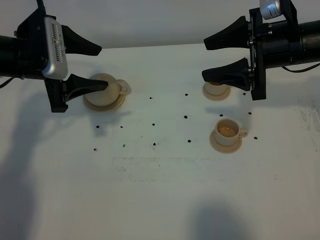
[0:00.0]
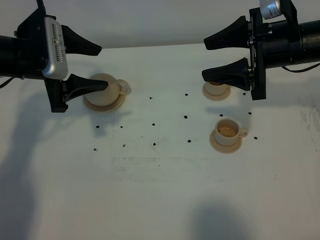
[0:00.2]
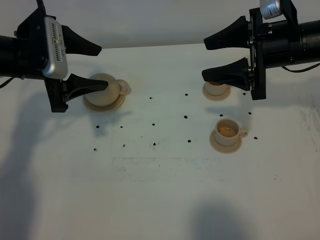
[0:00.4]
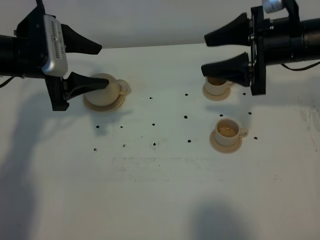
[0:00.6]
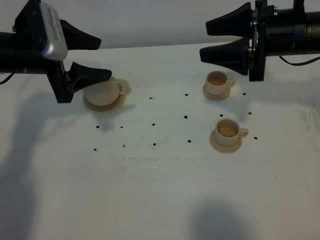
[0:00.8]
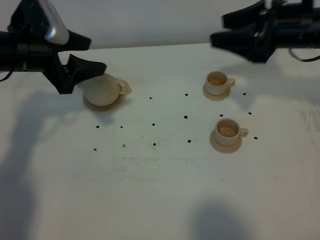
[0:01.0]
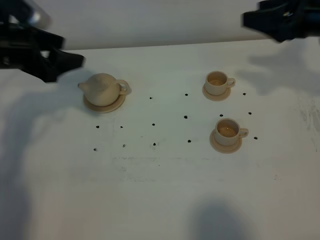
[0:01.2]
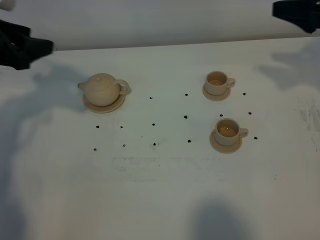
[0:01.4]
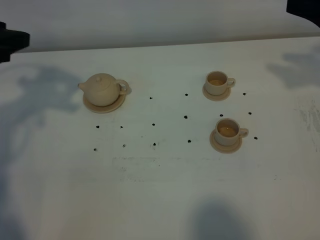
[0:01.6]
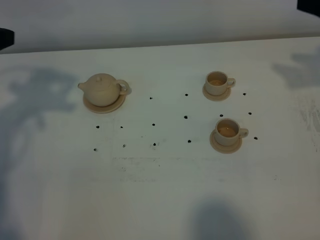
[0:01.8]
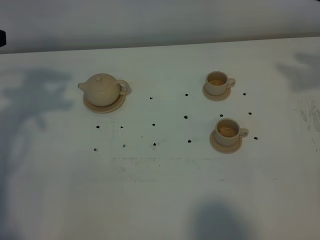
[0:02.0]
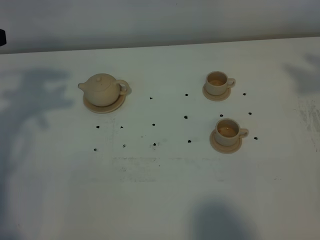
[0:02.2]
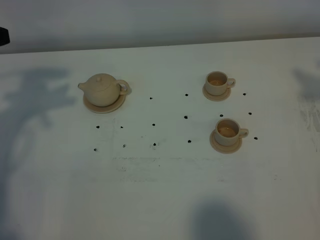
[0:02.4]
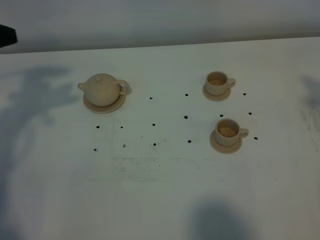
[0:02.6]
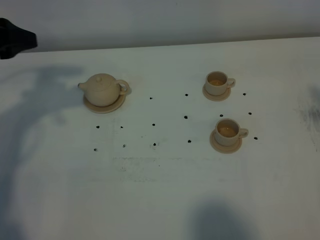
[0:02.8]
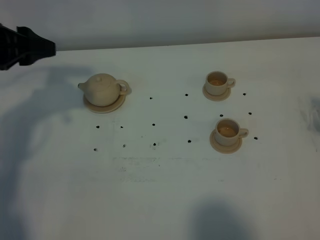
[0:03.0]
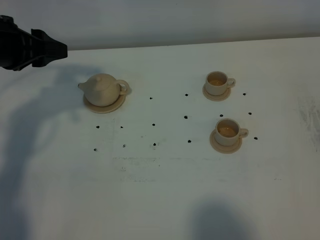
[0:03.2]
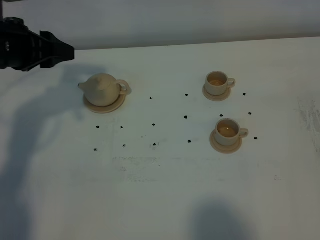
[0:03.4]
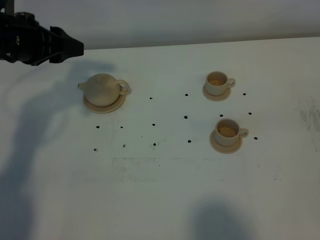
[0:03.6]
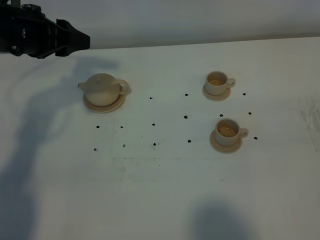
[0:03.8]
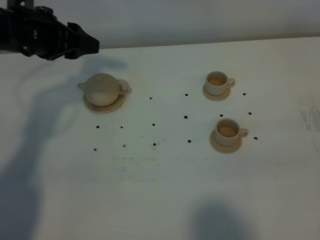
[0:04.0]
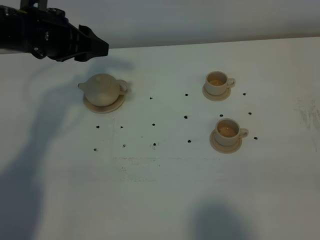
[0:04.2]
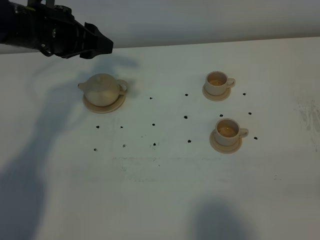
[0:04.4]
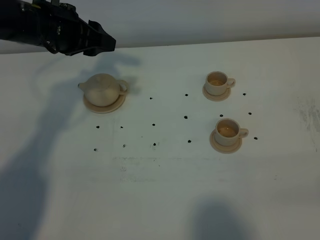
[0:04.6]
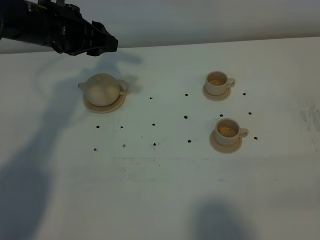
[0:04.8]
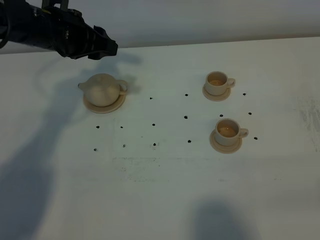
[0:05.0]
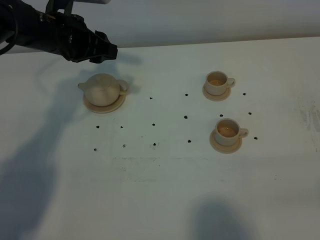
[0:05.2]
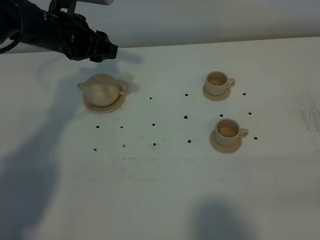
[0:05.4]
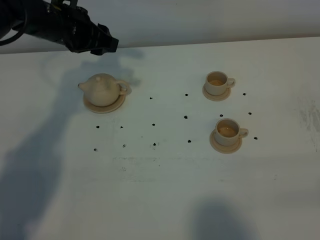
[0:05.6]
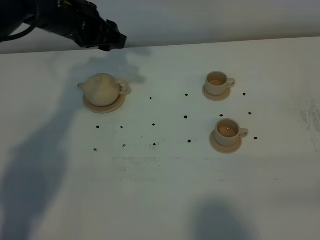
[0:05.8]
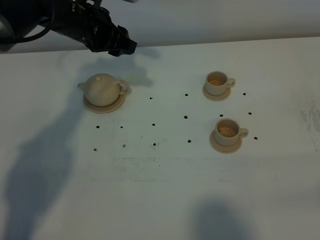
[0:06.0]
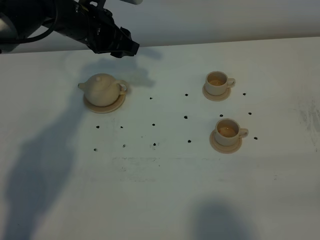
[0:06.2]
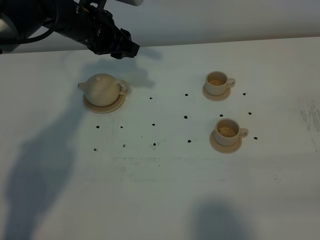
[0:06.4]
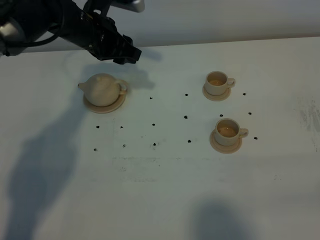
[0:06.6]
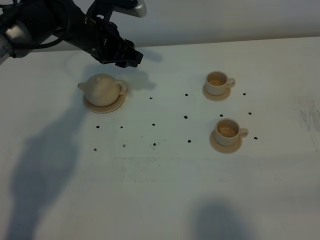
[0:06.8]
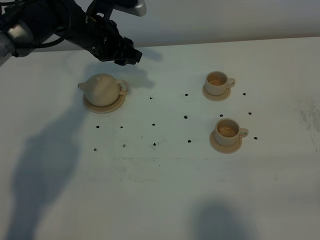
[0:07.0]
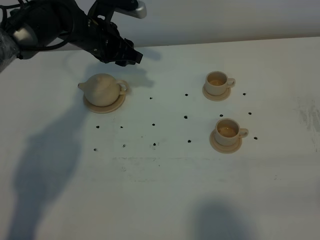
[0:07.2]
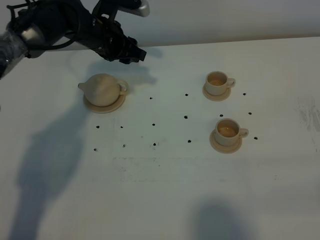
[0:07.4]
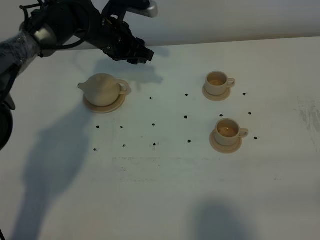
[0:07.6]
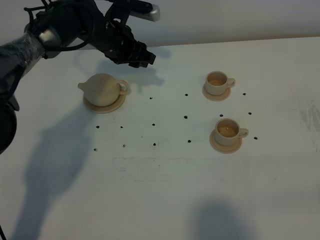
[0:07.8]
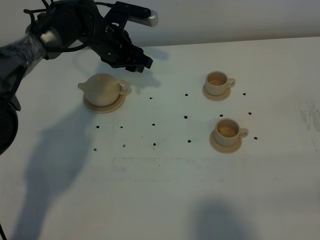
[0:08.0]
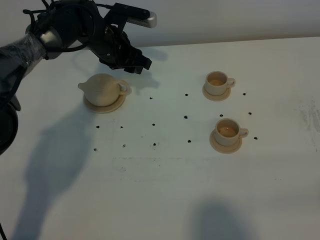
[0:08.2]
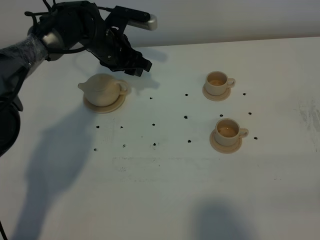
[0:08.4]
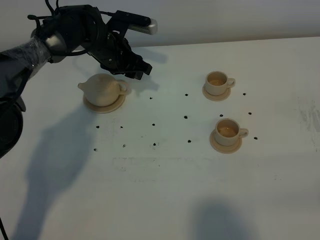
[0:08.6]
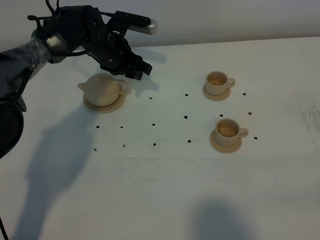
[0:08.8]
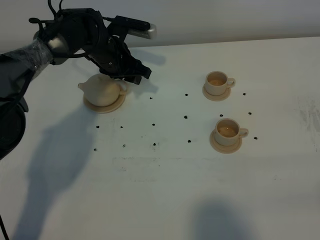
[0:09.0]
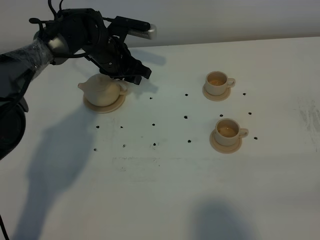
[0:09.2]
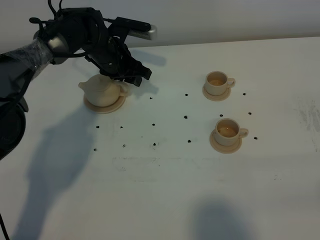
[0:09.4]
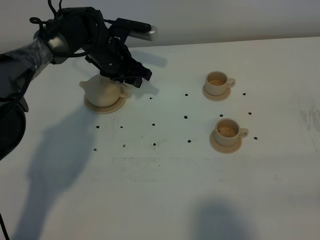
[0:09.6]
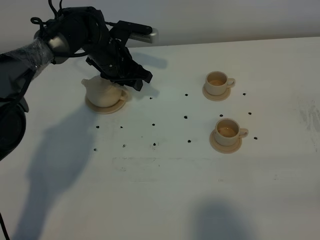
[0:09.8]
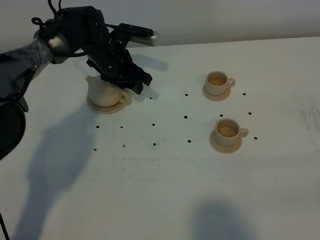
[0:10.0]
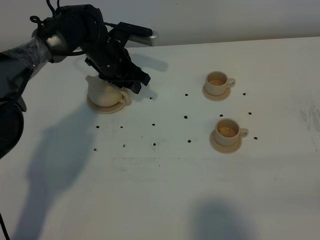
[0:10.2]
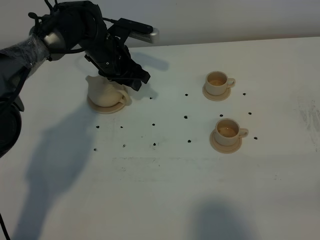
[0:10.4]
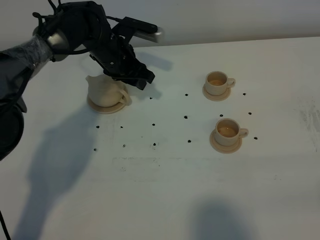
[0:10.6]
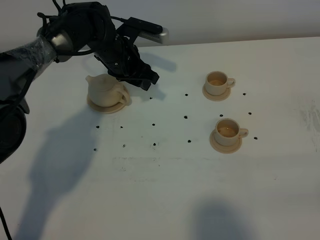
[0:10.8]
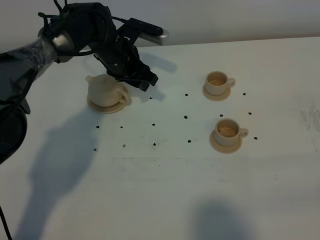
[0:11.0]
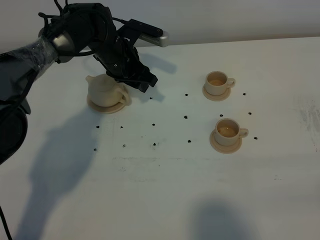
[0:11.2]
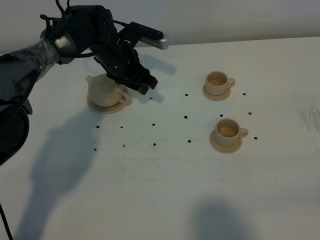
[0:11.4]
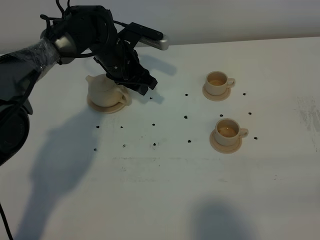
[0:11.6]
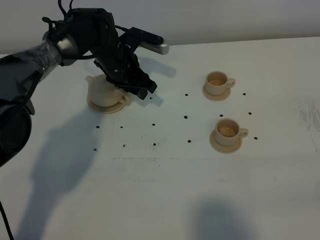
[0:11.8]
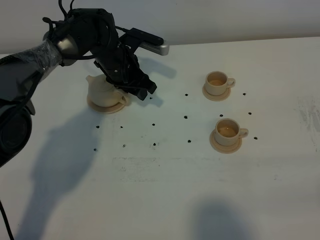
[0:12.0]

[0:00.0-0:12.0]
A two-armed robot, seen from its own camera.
Task of the whole recording: grasp the brown teapot and pour the tea into the two brown teacups one by one, put the brown teapot back in its original place.
0:00.0 to 0:01.6: The left gripper goes some 10 cm to the left and upward, while the right gripper goes roughly 15 cm to the right and upward.
0:01.6 to 0:03.0: The right gripper shifts some 25 cm backward and upward.
0:03.0 to 0:04.4: The left gripper heads to the right and forward, covering some 10 cm. The right gripper travels backward and downward by about 20 cm.
0:04.4 to 0:06.0: The right gripper closes. Meanwhile the left gripper heads forward, covering some 5 cm.
0:06.0 to 0:07.6: The left gripper shifts some 5 cm downward.
0:07.6 to 0:10.4: The grippers stay close to where they were, moving slightly.
0:10.4 to 0:12.0: The grippers stay close to where they were, moving slightly.

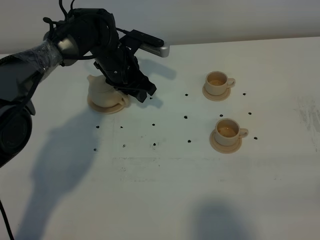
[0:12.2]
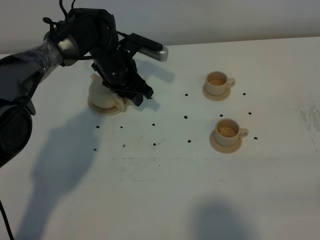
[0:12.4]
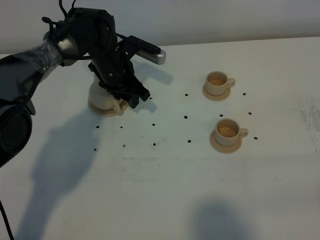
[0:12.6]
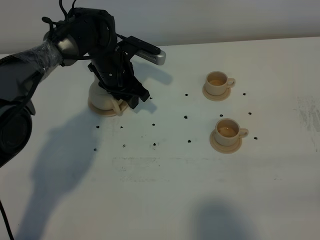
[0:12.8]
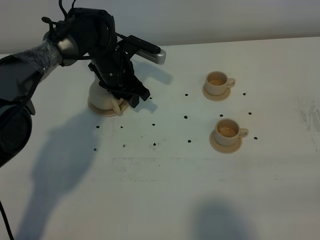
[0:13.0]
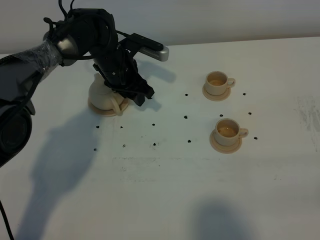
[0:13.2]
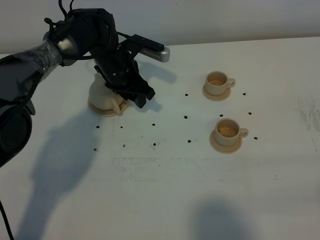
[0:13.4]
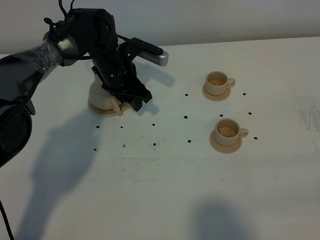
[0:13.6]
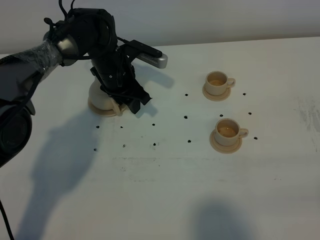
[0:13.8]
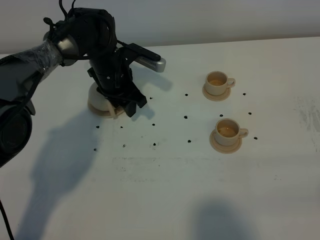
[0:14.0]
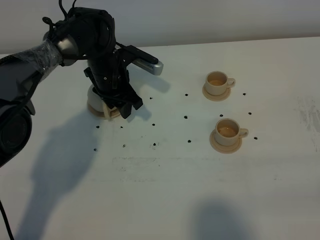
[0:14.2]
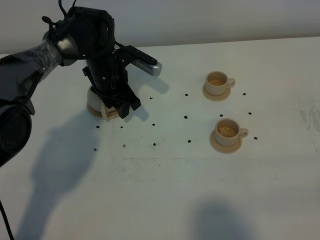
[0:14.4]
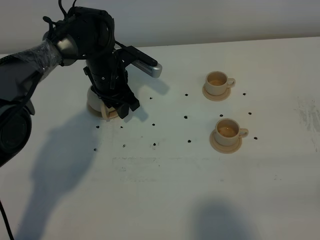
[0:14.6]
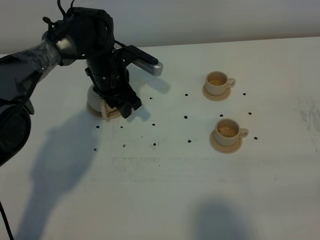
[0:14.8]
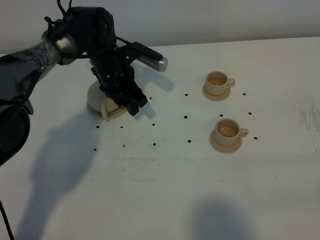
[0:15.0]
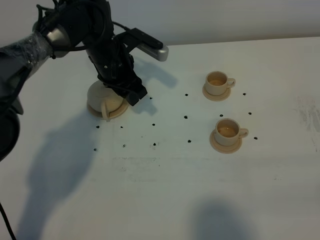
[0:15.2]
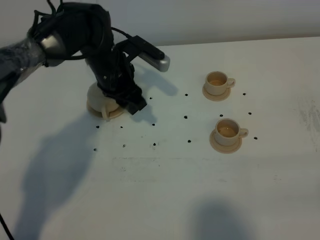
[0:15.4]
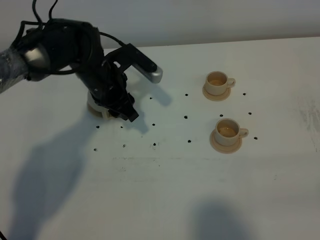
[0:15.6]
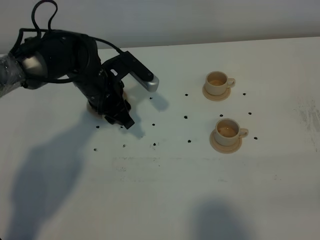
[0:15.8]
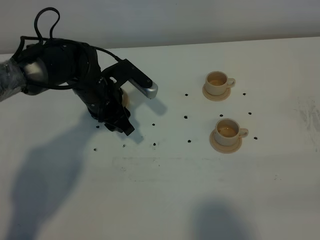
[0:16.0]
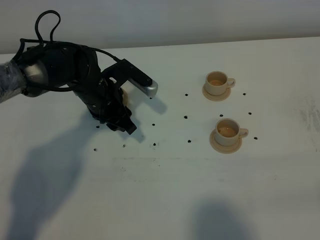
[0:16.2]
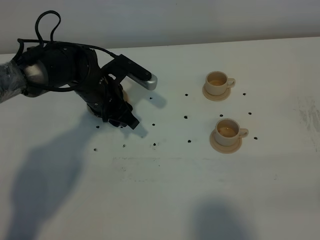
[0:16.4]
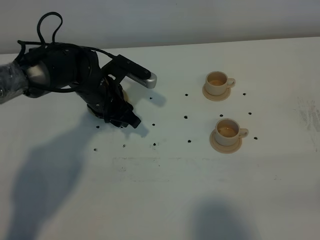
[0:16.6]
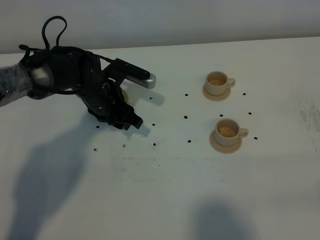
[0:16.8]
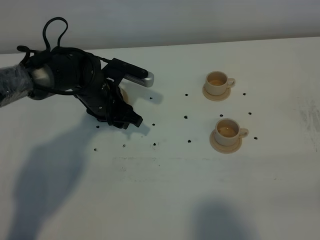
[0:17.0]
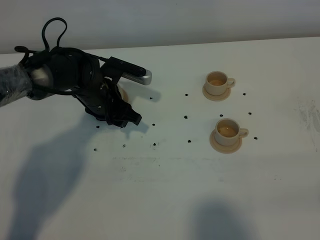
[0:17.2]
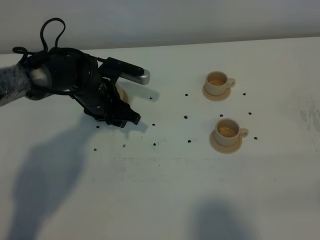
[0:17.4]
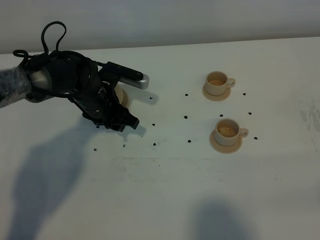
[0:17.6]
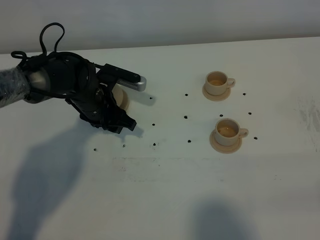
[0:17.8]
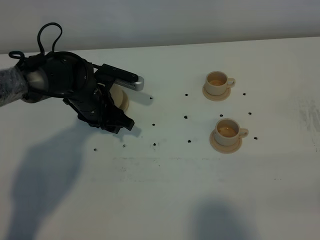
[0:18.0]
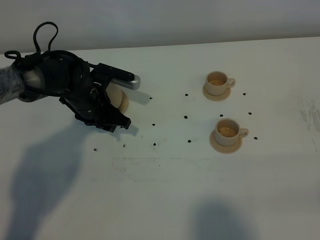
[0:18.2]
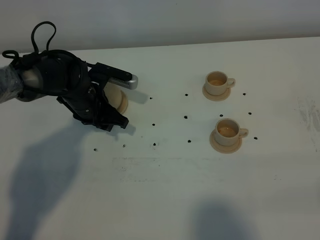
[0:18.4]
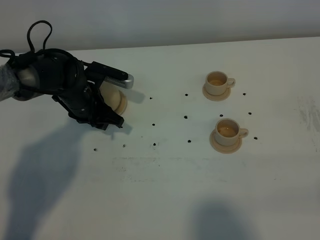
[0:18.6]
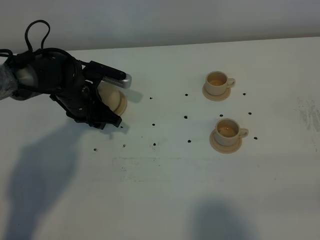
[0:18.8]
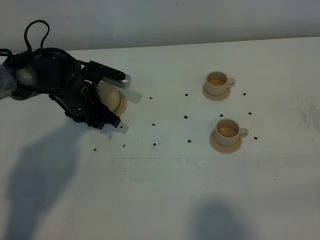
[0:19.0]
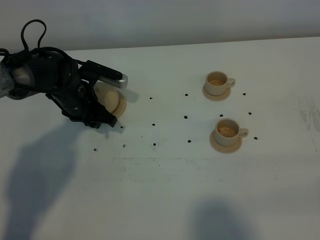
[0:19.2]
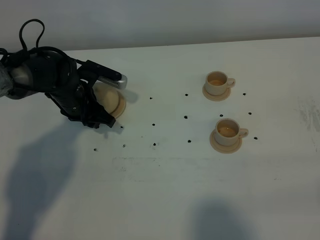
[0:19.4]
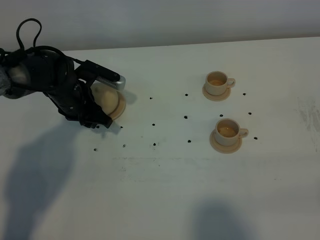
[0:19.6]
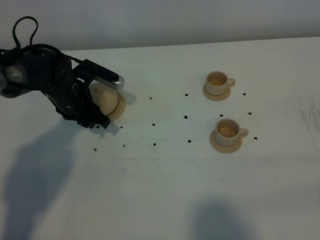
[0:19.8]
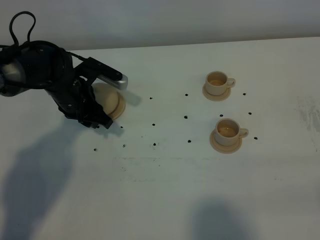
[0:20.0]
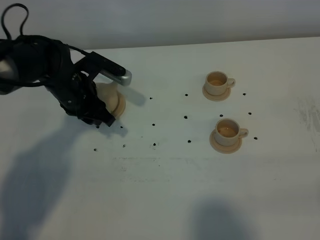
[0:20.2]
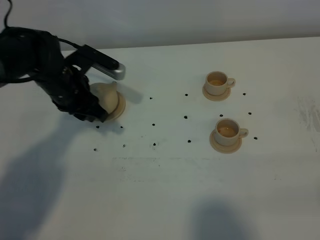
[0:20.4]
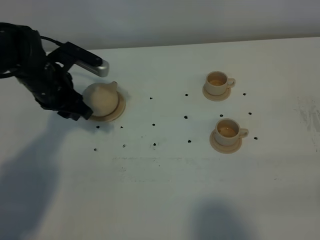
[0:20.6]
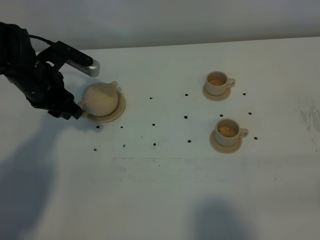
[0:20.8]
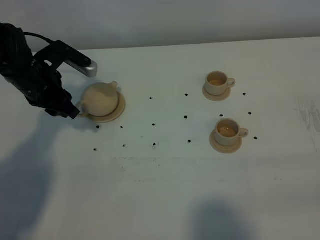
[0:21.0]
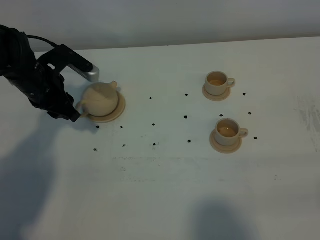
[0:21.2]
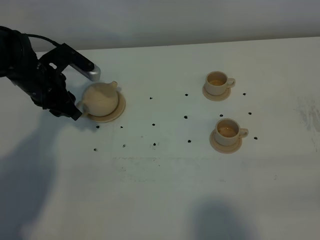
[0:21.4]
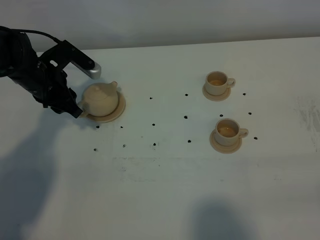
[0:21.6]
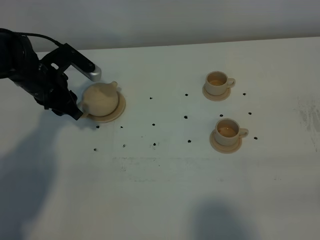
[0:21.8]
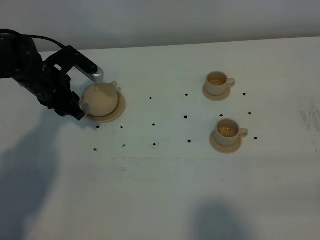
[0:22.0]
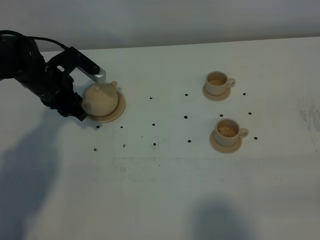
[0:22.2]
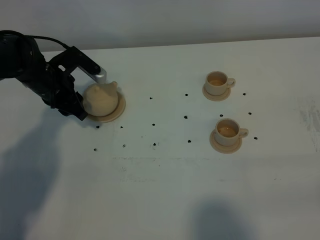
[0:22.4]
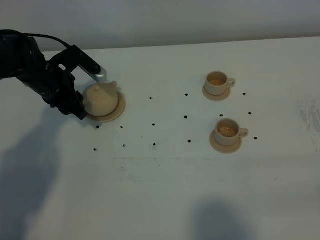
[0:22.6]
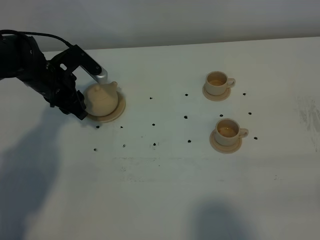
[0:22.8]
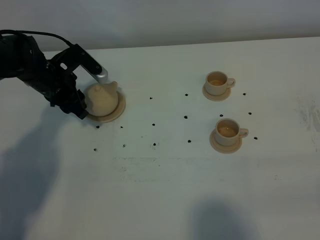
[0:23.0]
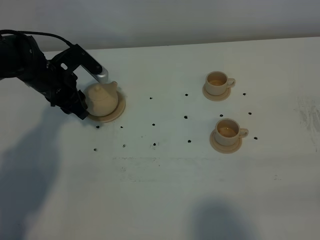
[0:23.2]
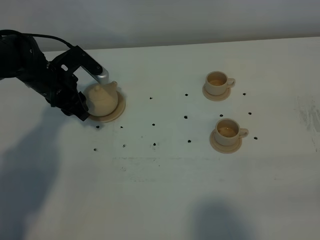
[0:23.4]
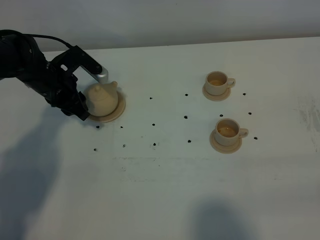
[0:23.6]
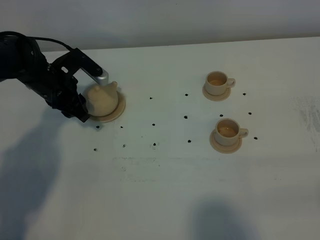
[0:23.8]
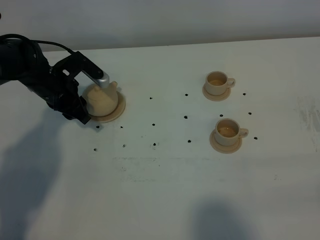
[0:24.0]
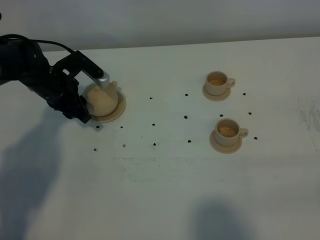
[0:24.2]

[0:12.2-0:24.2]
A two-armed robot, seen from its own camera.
Task of the whole recording: grasp the brown teapot and pour the tea into the two brown teacups one by one, put the brown teapot back in its original place.
0:12.2 to 0:15.2: The grippers stay close to where they were, moving slightly.
0:15.2 to 0:16.6: The left gripper heads backward, covering some 5 cm.
0:16.6 to 0:18.2: The grippers move only a little.
0:18.2 to 0:19.8: The grippers stay close to where they were, moving slightly.
0:19.8 to 0:21.2: The left gripper ends up approximately 5 cm from where it was.
0:21.2 to 0:24.2: The grippers make only small movements.
